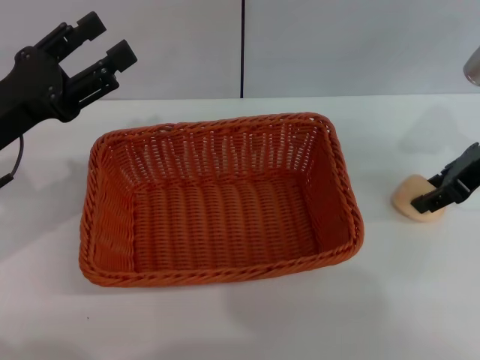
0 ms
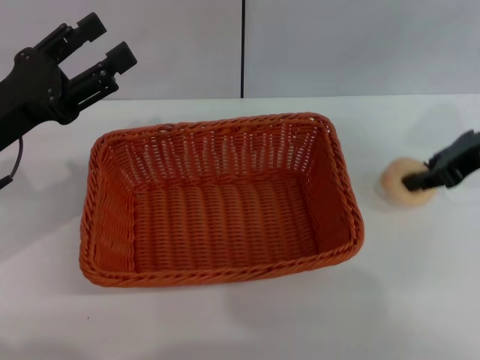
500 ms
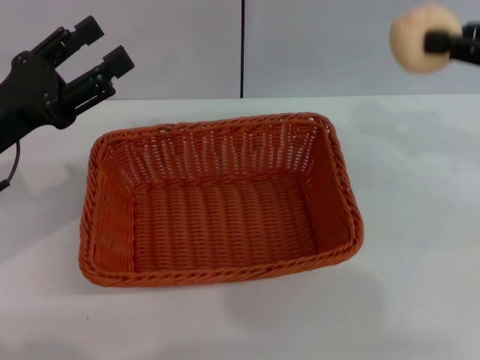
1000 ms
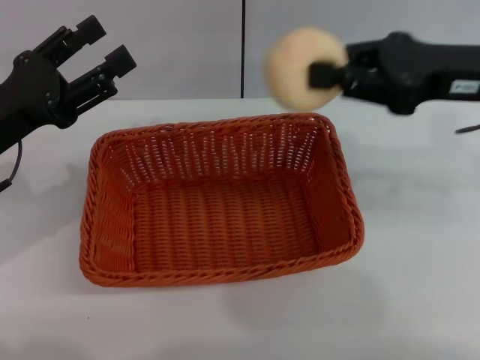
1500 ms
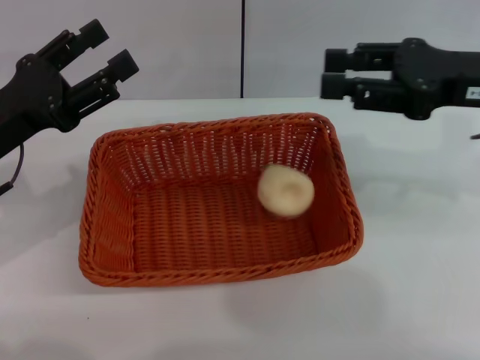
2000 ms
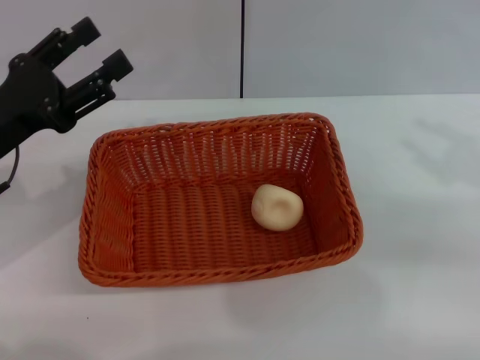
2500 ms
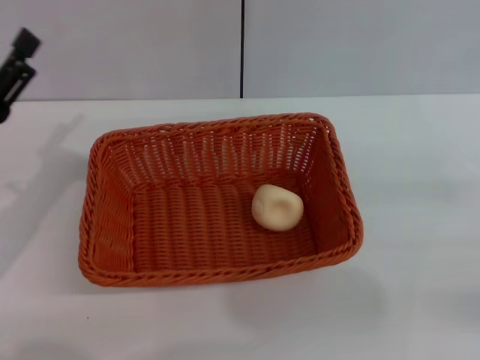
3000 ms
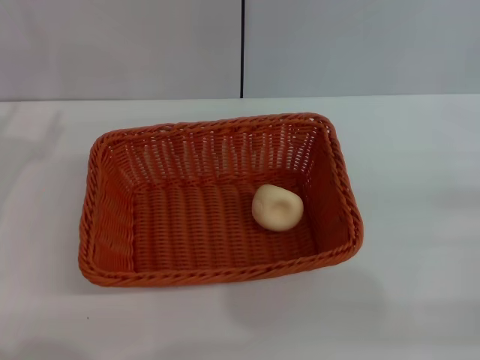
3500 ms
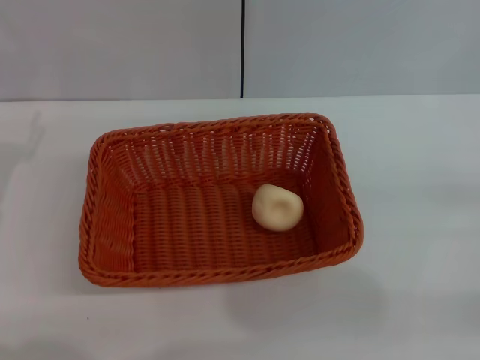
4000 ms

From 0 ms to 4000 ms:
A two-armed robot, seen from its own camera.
Step, from 1000 ms to 2000 ms: Place the egg yolk pastry into the basket with the right gripper.
From 0 ms to 2000 ms: The right gripper reaches some 5 cm to the right, then returns, and closes, then opens again.
From 2000 ms to 4000 ms: The left gripper ends up roughly 5 cm from where it was. Meanwhile the right gripper travels to the right, downward and backward by approximately 20 cm.
